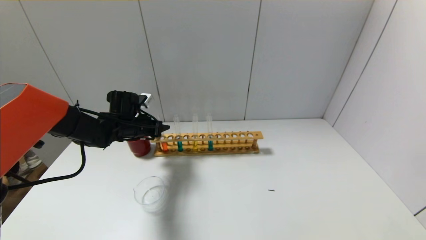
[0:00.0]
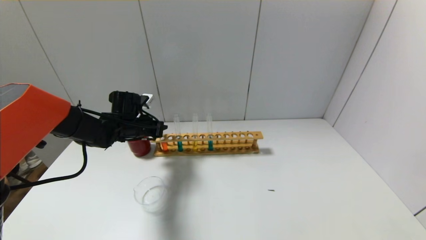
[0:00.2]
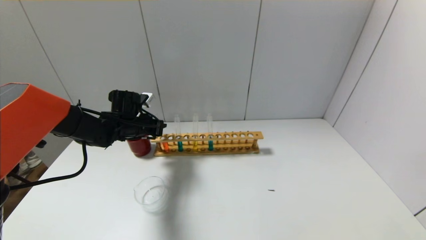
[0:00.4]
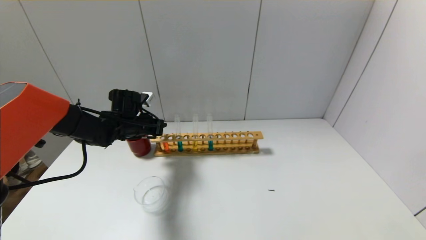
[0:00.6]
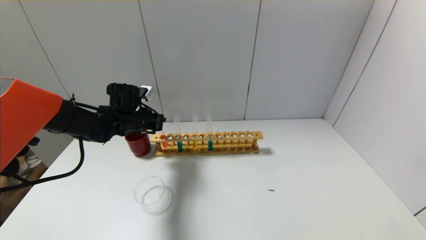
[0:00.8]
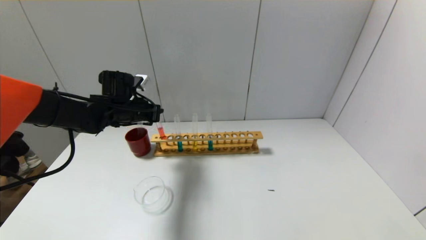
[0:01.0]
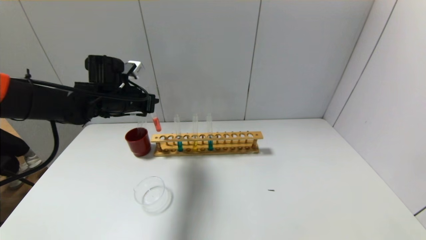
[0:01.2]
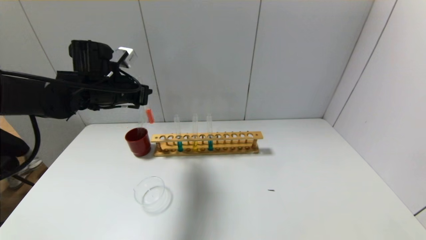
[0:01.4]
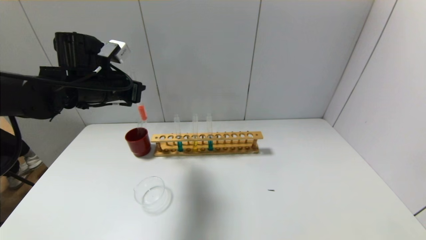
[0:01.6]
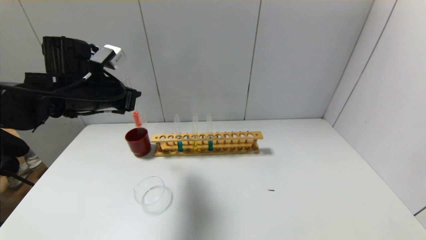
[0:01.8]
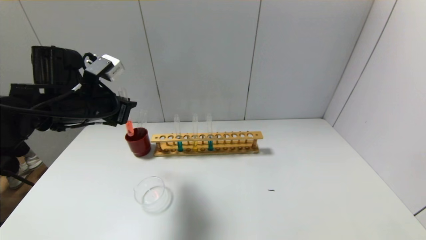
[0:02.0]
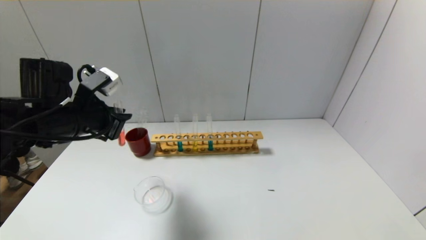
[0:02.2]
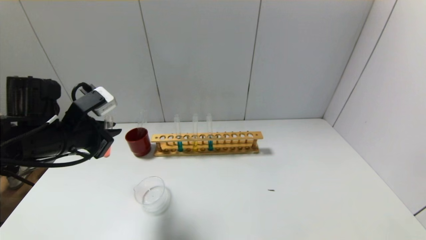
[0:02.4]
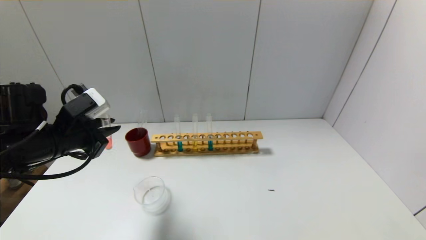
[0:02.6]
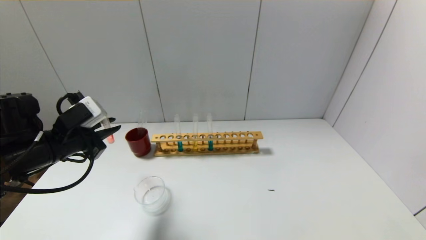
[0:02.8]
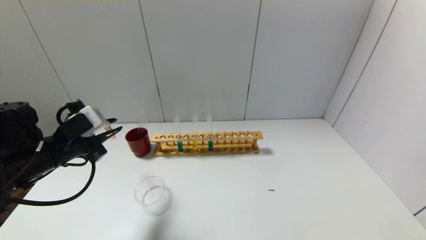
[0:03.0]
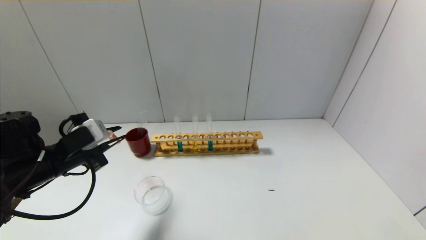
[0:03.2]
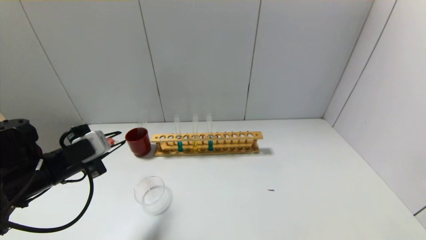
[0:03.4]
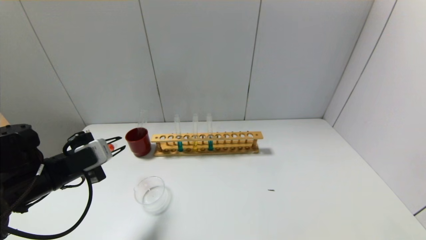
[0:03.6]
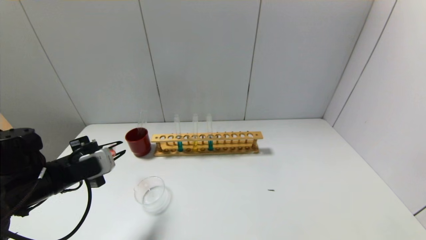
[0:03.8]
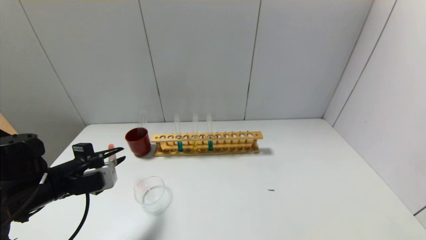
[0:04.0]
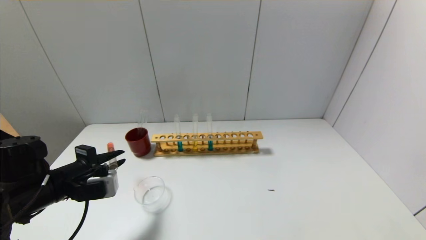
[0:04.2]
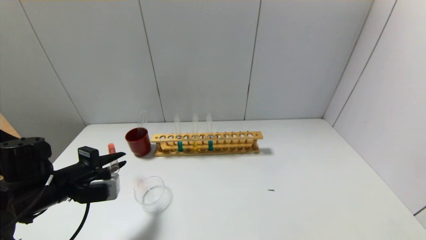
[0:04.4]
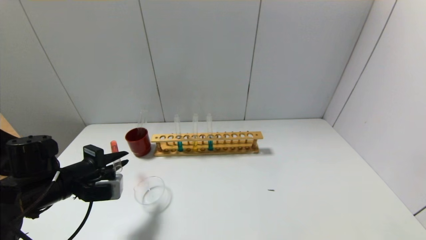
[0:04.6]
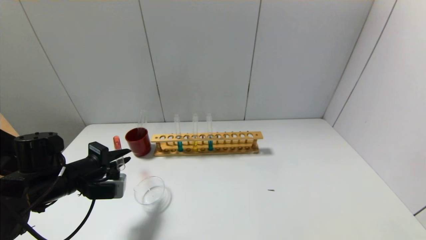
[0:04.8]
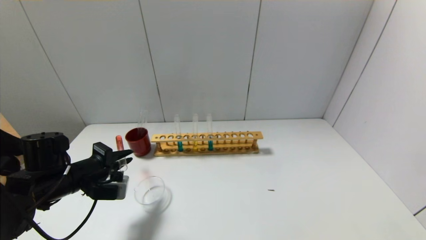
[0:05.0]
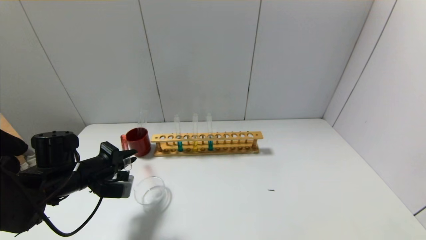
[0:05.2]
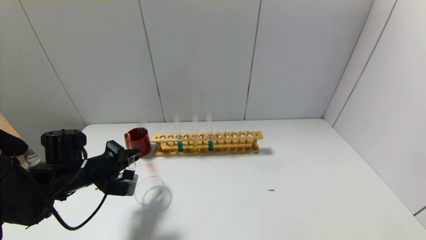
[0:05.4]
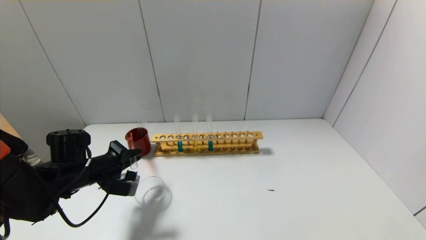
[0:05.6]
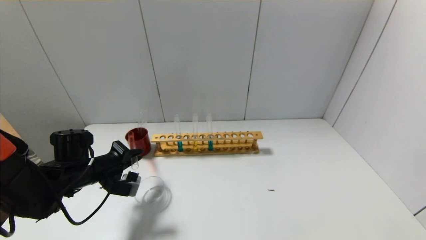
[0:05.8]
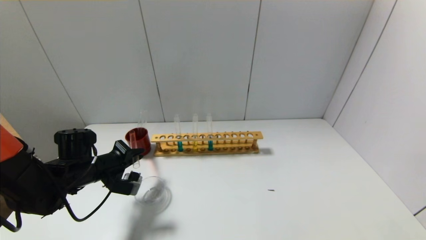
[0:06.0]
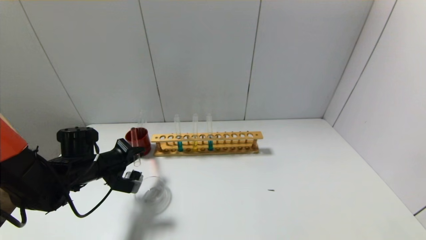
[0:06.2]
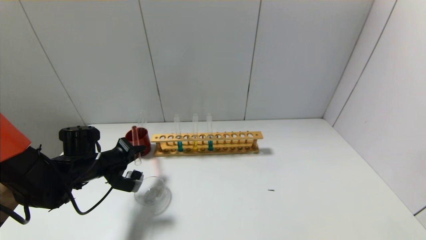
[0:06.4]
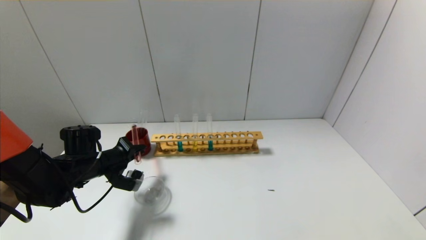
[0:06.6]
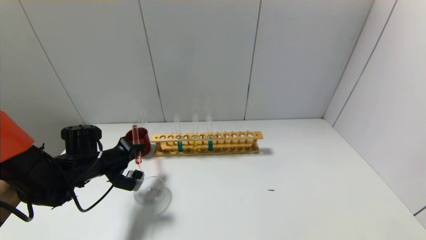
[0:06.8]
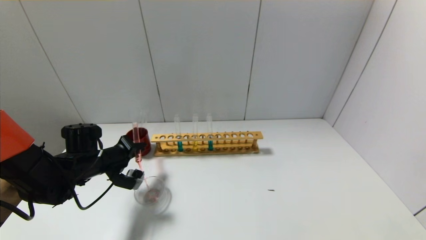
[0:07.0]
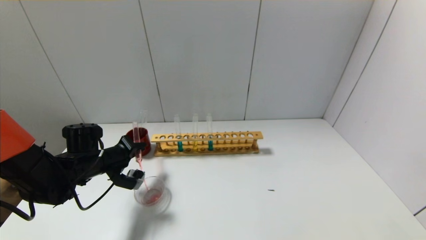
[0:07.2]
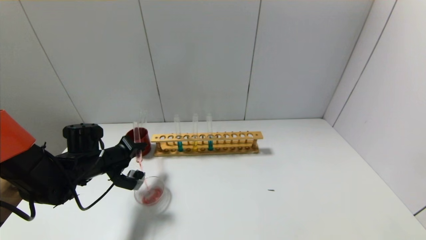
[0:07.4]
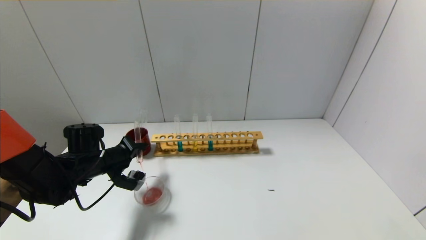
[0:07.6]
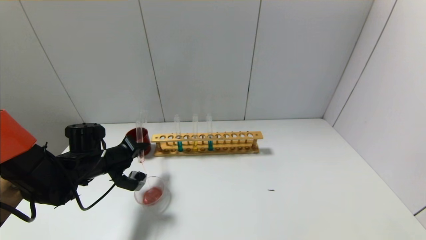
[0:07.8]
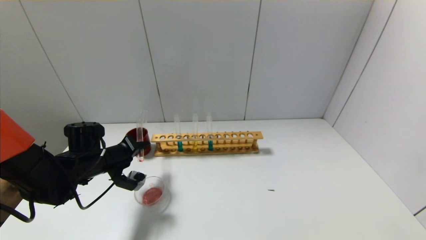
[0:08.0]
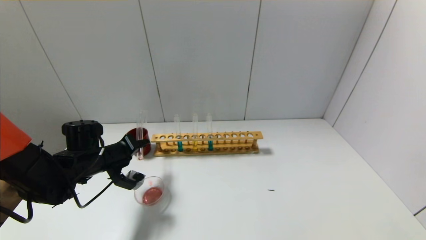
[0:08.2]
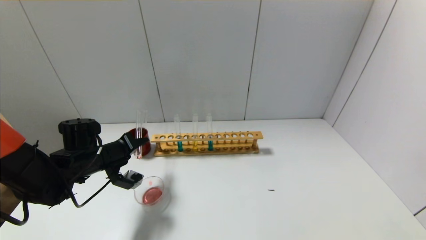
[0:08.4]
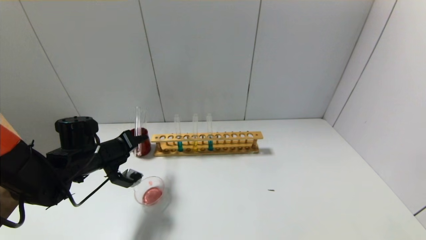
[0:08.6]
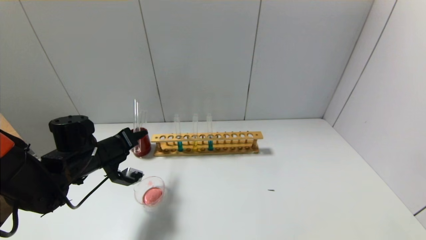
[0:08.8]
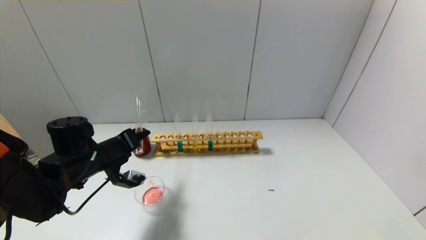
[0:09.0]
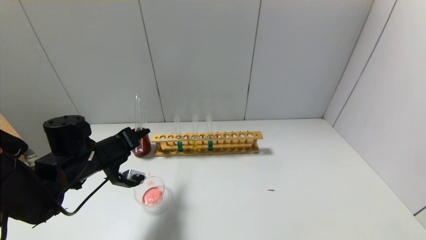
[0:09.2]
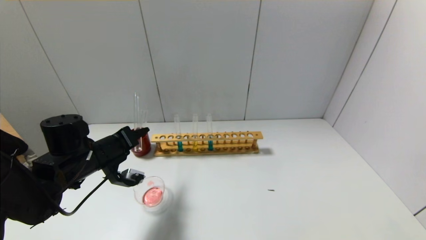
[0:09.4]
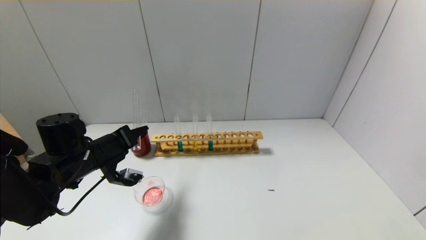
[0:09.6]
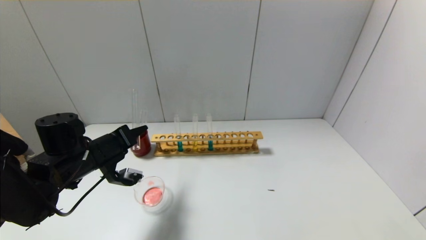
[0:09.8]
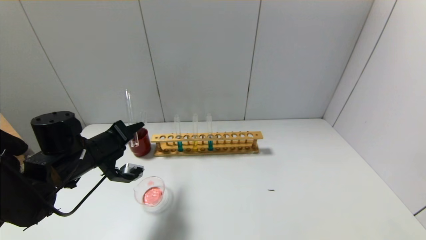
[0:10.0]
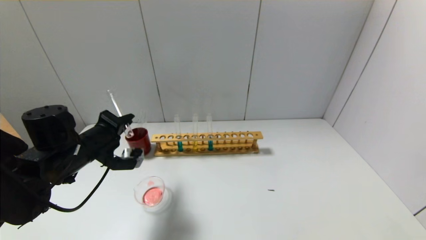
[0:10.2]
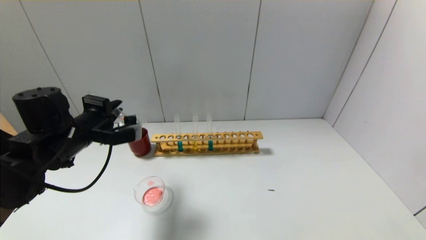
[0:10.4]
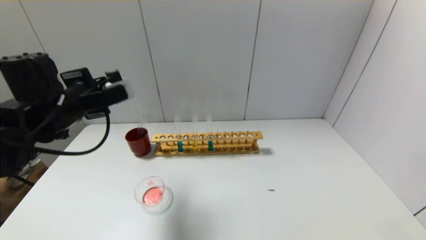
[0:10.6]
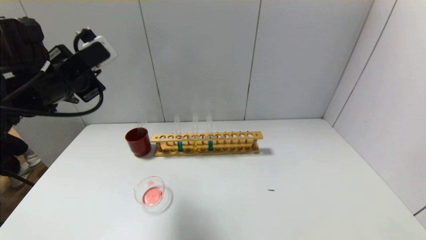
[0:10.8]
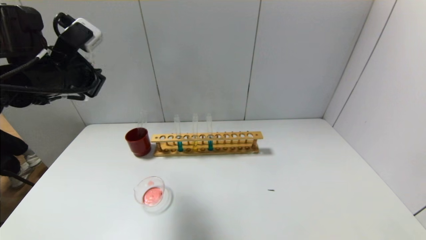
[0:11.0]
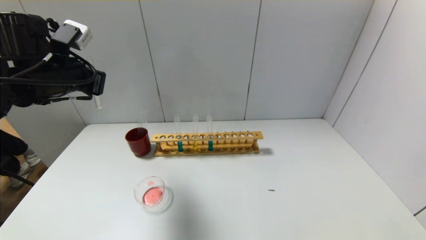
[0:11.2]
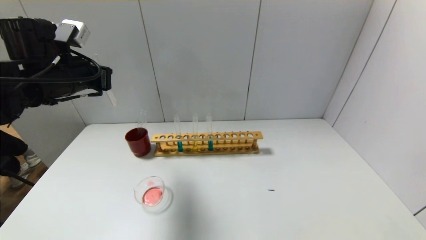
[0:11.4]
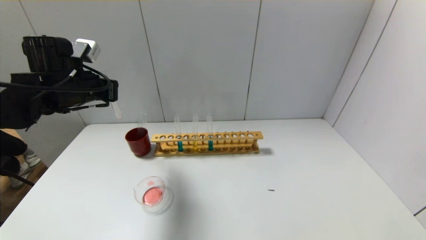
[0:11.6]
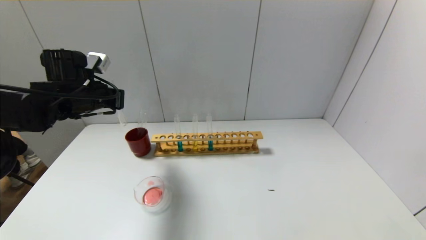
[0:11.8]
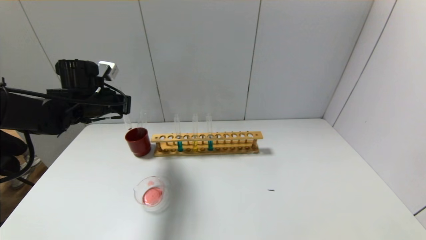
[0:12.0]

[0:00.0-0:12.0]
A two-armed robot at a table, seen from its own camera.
Step, 0:00.4 to 0:10.0: Pour the red reagent into the graduated cylinder with the left gripper.
0:00.0 to 0:01.6: The left gripper moves upward and backward, some 15 cm.
0:01.6 to 0:03.0: The left gripper travels backward, downward and to the left by about 15 cm.
0:03.0 to 0:04.4: The left gripper heads downward, covering approximately 5 cm.
0:04.4 to 0:06.0: The left gripper heads forward, covering about 5 cm.
0:06.0 to 0:07.6: The grippers move only a little.
0:07.6 to 0:09.0: The left gripper ends up roughly 5 cm from where it was.
0:09.0 to 0:10.4: The left gripper heads upward, covering about 5 cm.
0:10.4 to 0:12.0: The left gripper travels forward by some 10 cm, and travels upward and back again, roughly 10 cm each way.

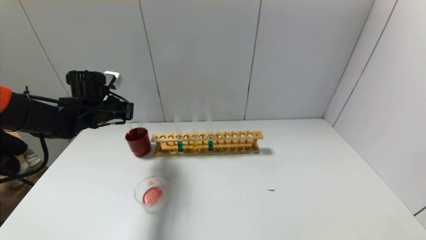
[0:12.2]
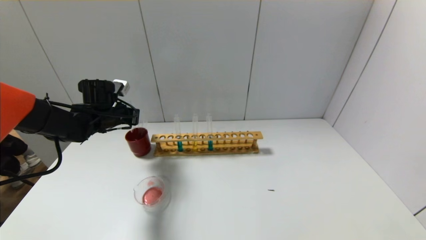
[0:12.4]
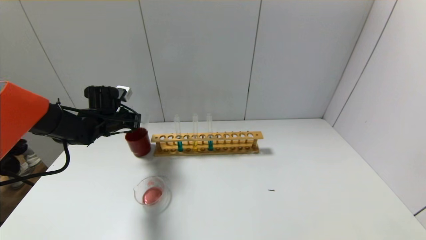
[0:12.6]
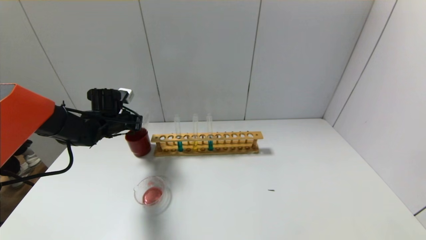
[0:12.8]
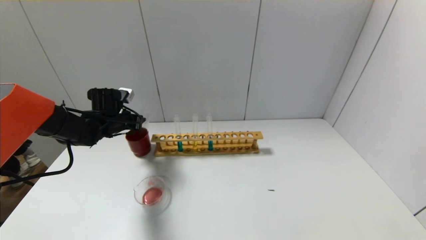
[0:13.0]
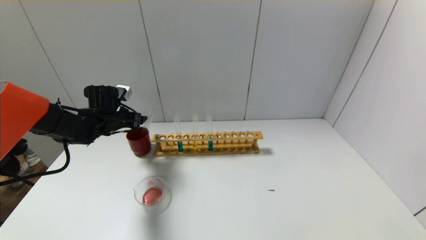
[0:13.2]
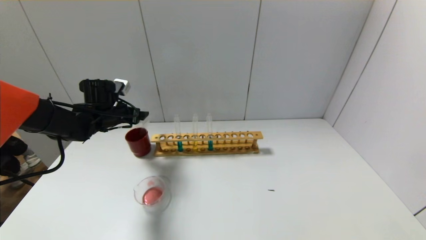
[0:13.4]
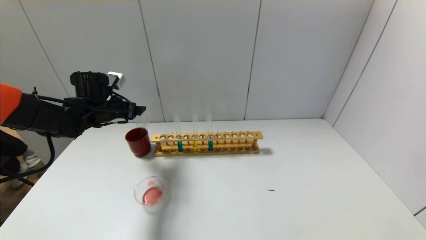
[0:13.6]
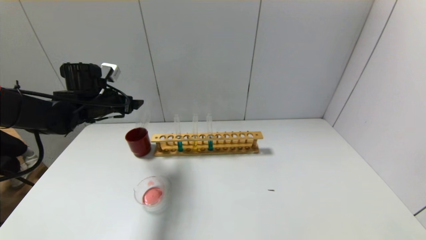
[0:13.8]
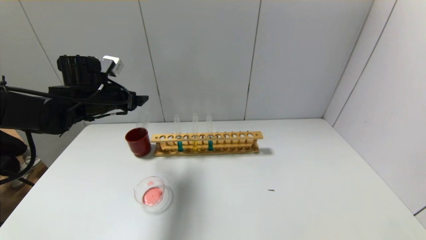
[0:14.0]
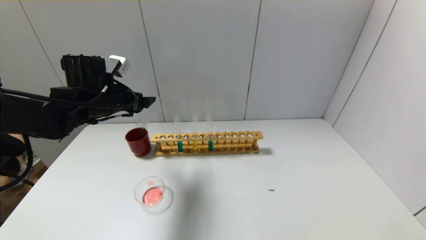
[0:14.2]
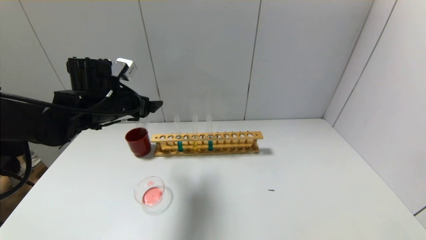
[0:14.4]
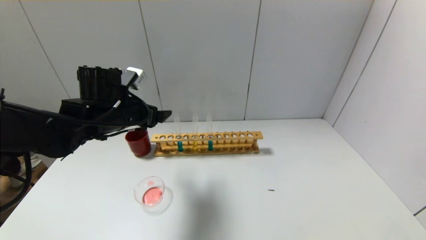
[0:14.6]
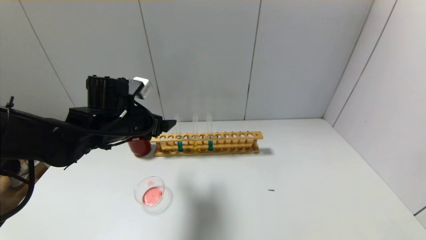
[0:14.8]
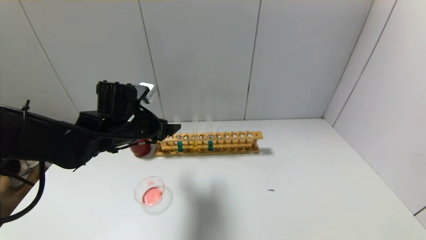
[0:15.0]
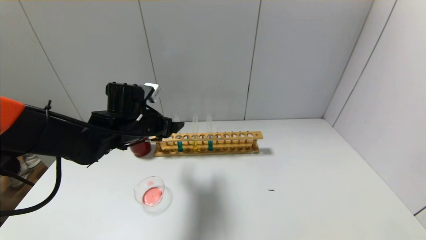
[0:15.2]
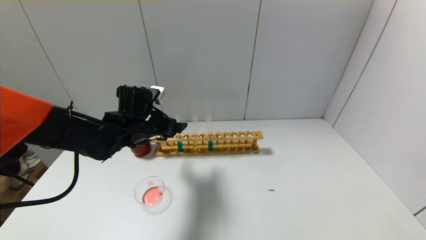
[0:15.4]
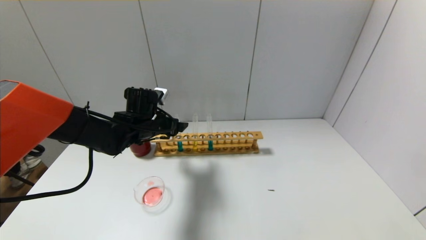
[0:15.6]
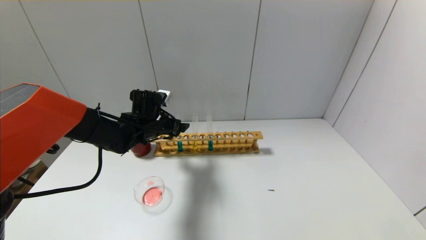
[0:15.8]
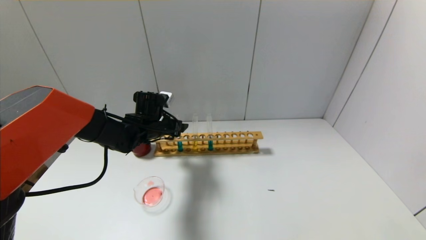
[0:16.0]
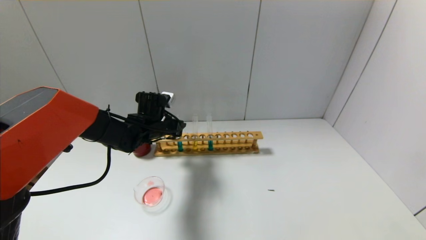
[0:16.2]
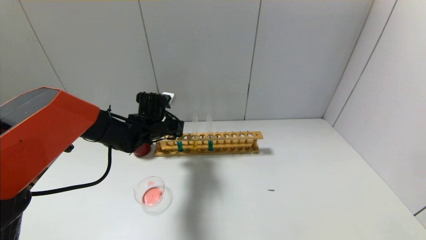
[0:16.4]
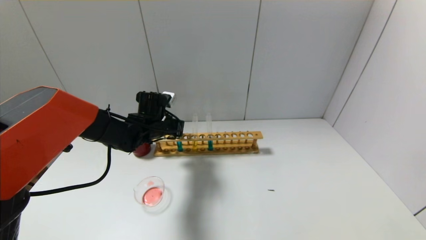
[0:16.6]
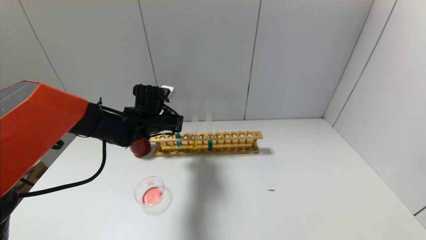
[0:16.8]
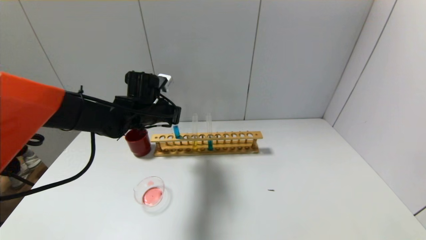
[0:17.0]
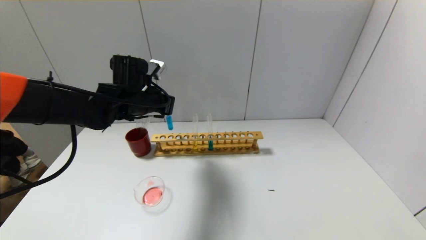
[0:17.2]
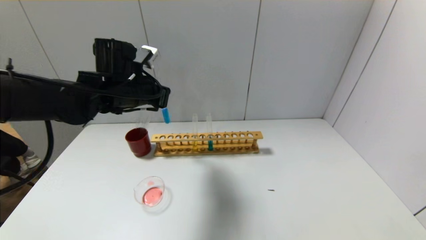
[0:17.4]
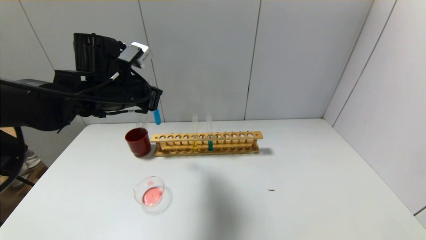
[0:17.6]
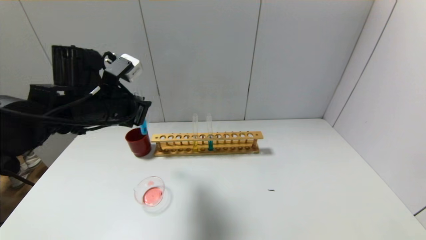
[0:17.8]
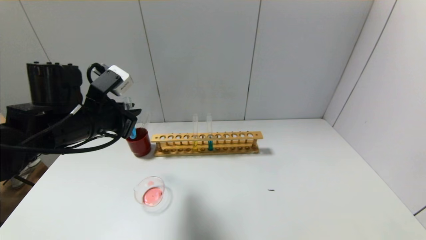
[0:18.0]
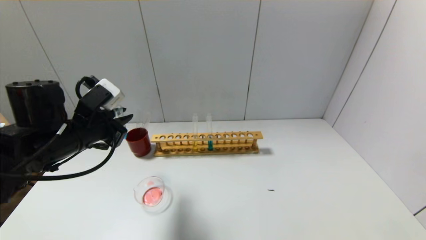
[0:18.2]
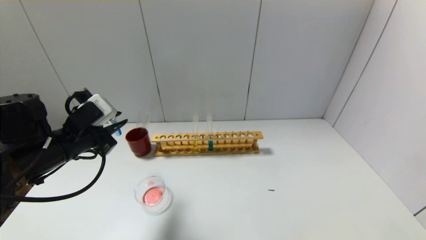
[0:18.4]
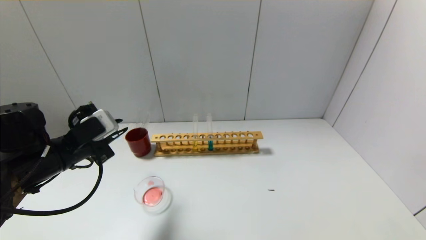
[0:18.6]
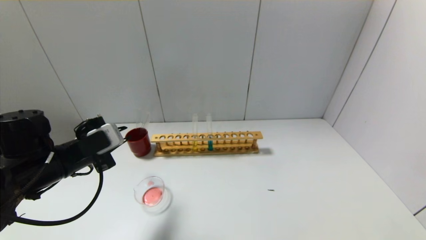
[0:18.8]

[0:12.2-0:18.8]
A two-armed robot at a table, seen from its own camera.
Step, 0:13.2 to 0:16.4: Grasp the blue reagent with the left gripper.
0:12.2 to 0:13.8: The left gripper reaches approximately 5 cm downward, then returns, and opens.
0:13.8 to 0:15.4: The left gripper is displaced to the right by about 10 cm.
0:15.4 to 0:17.2: The left gripper shifts approximately 5 cm upward, and closes its fingers.
0:17.2 to 0:18.8: The left gripper goes roughly 20 cm backward, to the left and downward.
